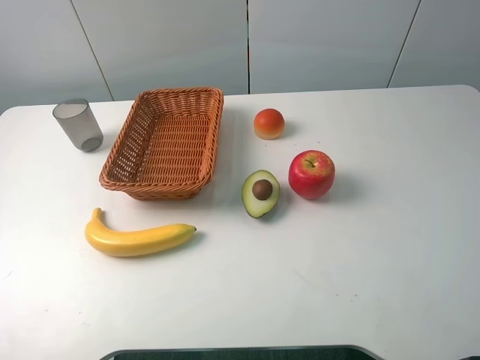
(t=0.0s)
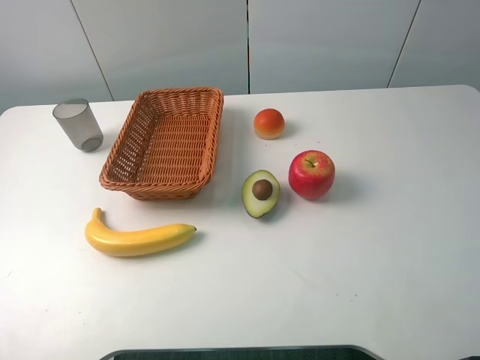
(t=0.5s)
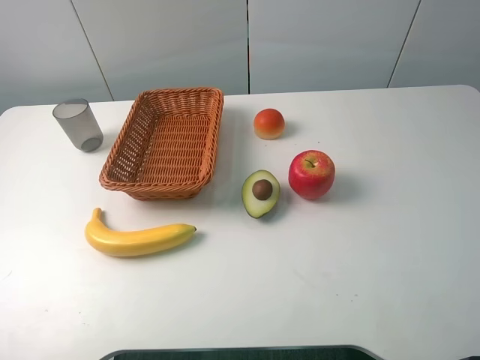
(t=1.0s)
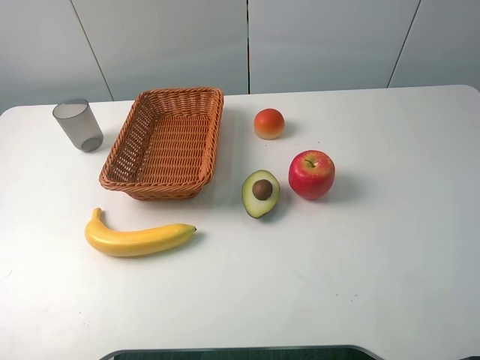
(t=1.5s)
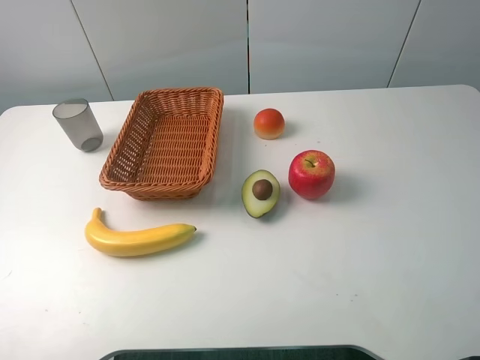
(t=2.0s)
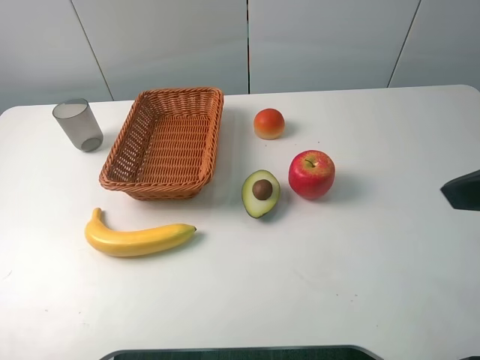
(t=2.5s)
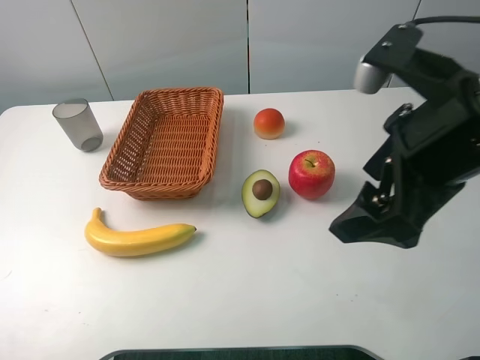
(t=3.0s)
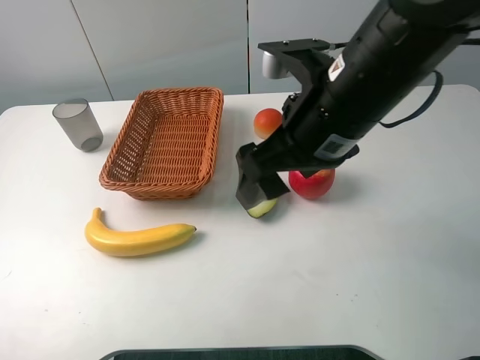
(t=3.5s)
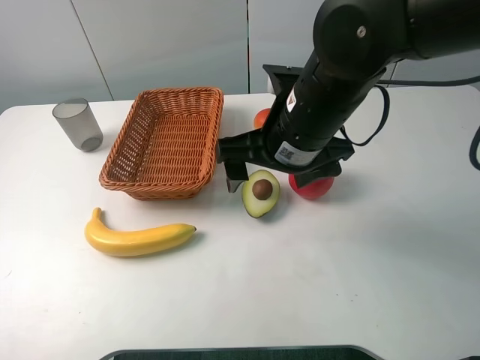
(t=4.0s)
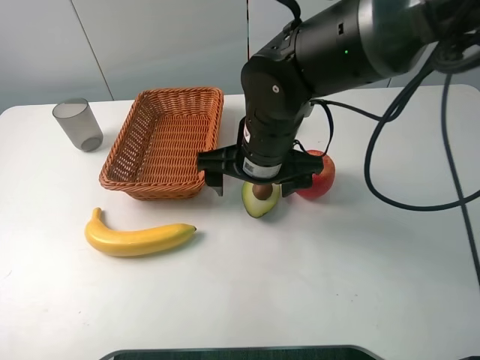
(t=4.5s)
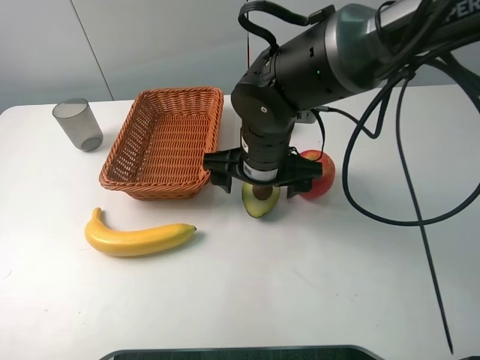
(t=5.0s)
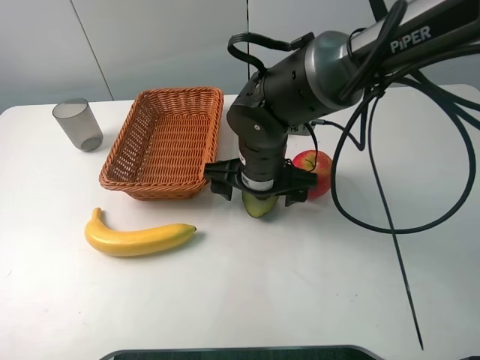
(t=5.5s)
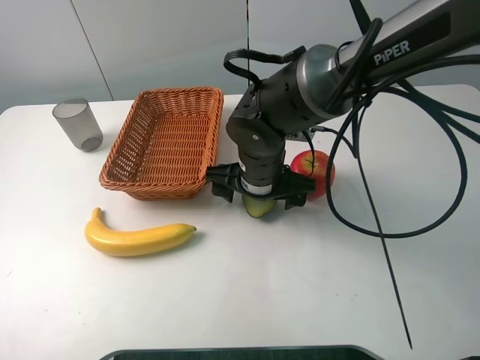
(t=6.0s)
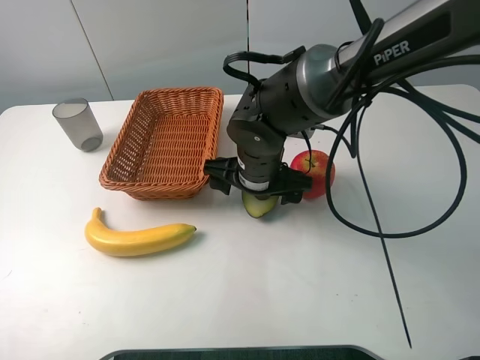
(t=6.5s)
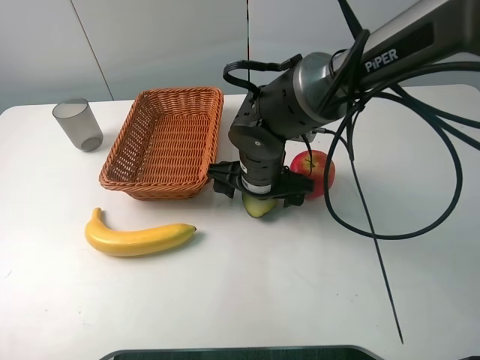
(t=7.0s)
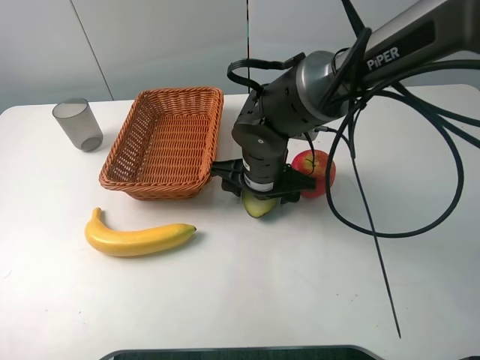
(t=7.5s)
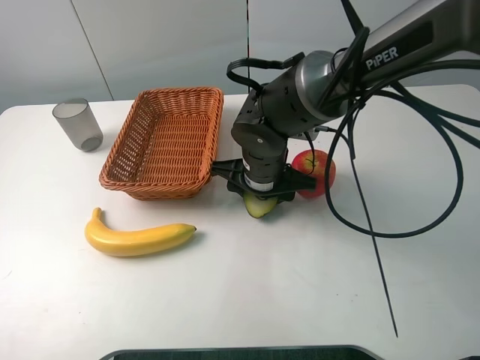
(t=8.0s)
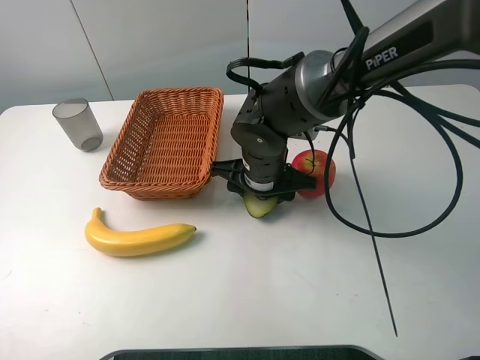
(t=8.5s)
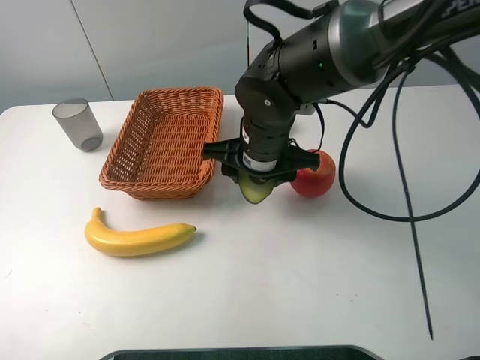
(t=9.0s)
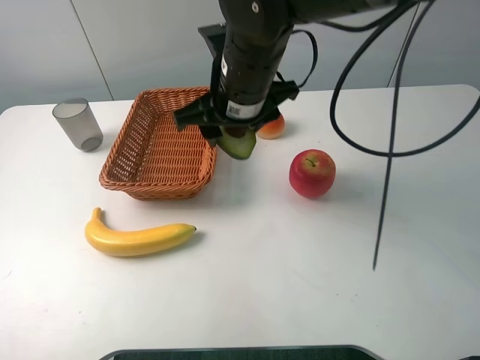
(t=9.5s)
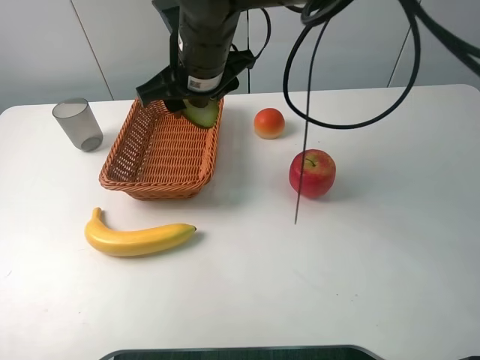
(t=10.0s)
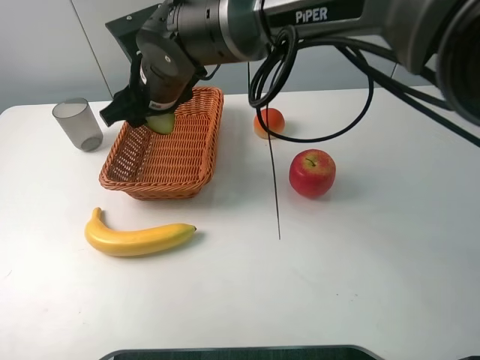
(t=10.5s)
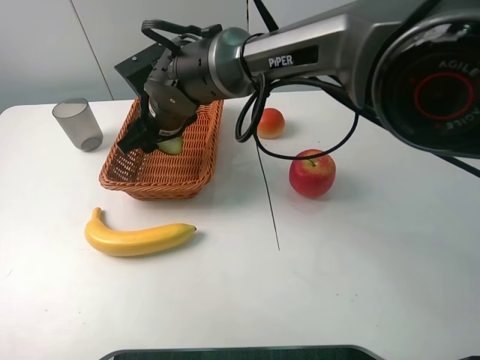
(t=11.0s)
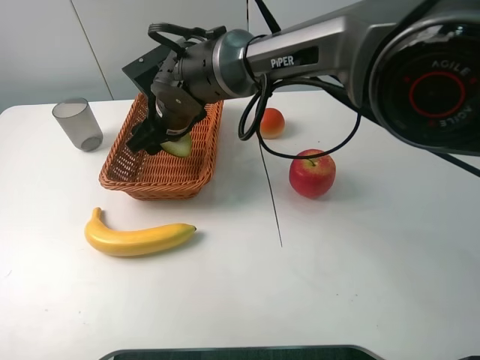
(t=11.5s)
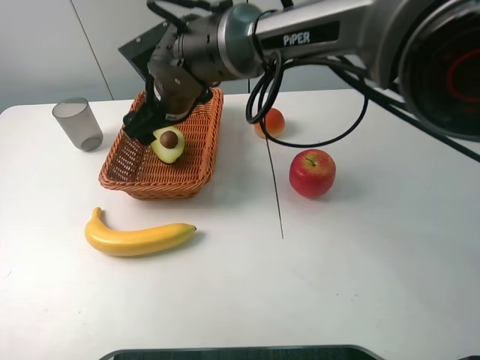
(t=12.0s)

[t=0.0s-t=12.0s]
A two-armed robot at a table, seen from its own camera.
t=2.0s to t=4.0s: The right gripper shifts some 30 cm to the left, forward and downward.
t=4.0s to t=6.0s: The right gripper heads downward, covering some 10 cm.
t=6.0s to t=8.0s: The right gripper closes.
t=8.0s to t=10.0s: The right gripper goes about 15 cm upward and to the left.
t=10.0s to t=12.0s: The right gripper shifts some 5 cm downward, and opens.

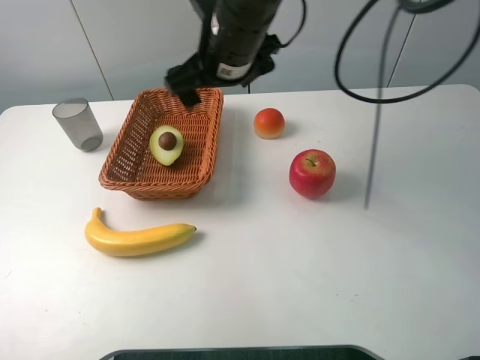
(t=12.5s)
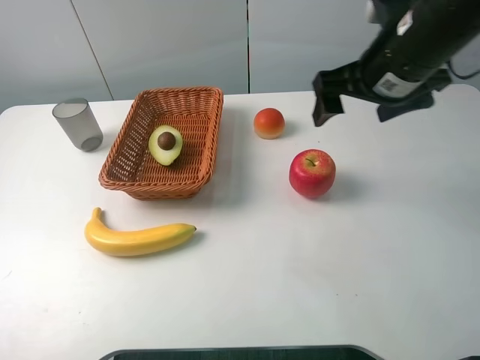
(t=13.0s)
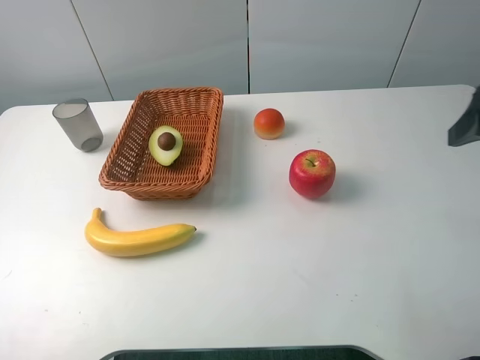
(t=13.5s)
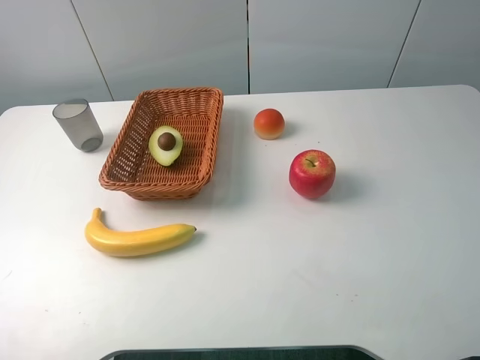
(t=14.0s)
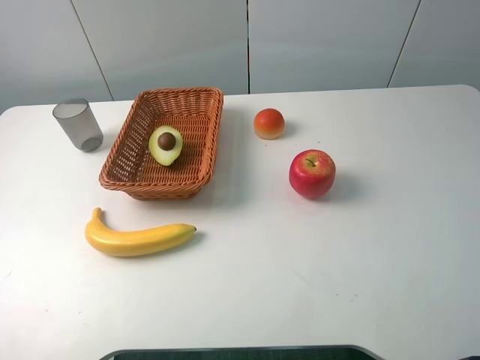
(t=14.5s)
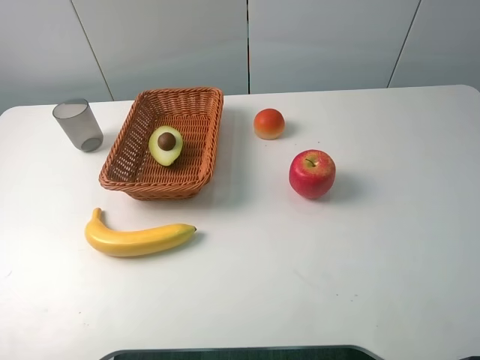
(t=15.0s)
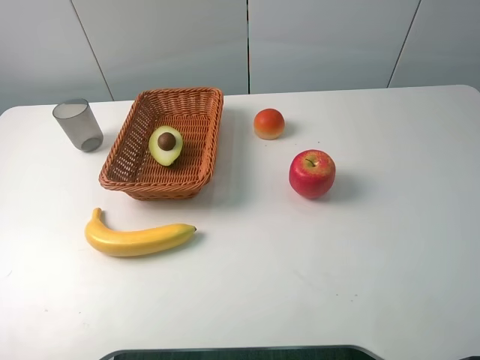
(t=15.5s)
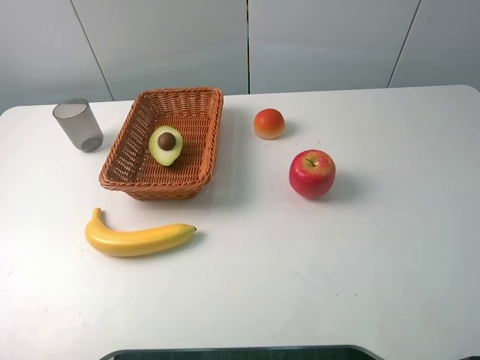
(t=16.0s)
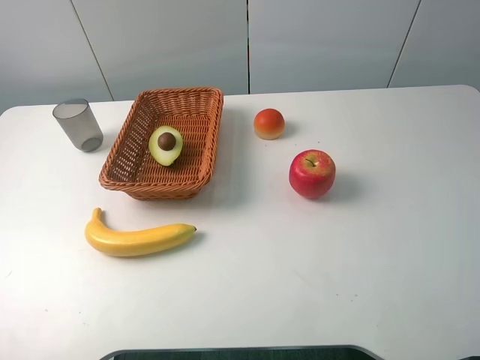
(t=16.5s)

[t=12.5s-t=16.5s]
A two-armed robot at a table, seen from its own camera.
t=12.5s to t=14.5s: The right gripper is displaced backward and to the right by approximately 40 cm.
